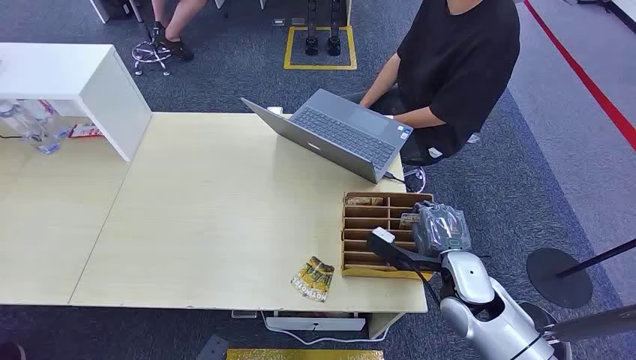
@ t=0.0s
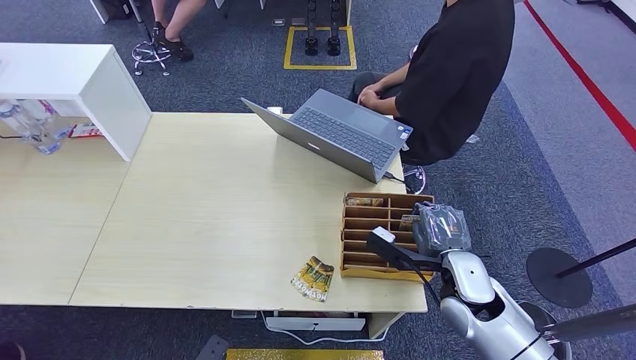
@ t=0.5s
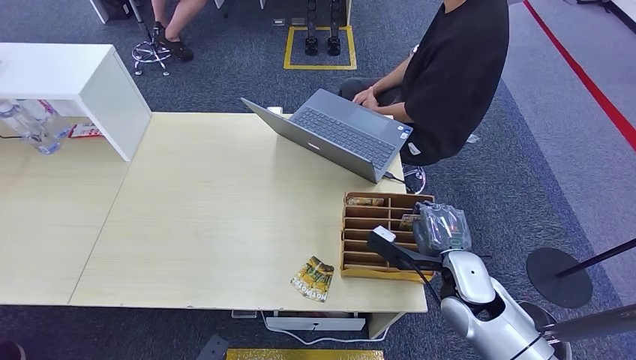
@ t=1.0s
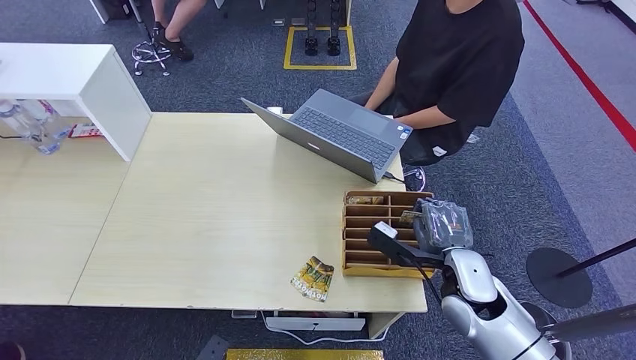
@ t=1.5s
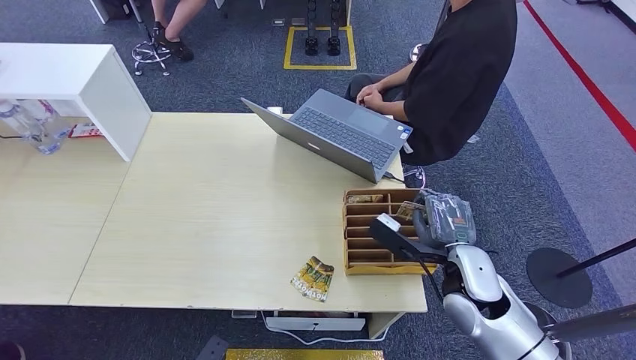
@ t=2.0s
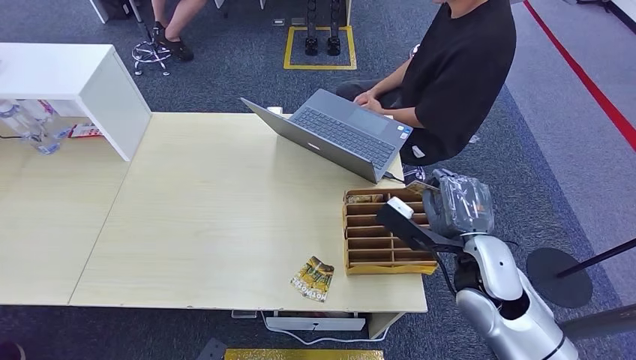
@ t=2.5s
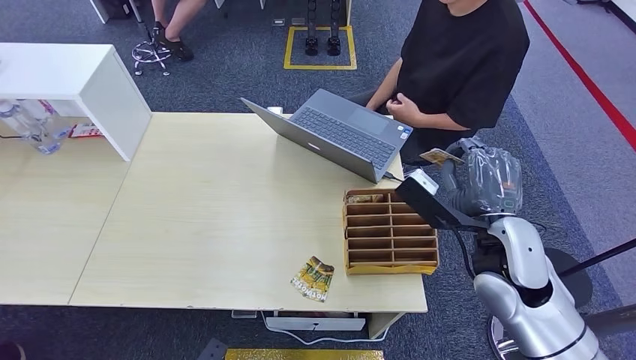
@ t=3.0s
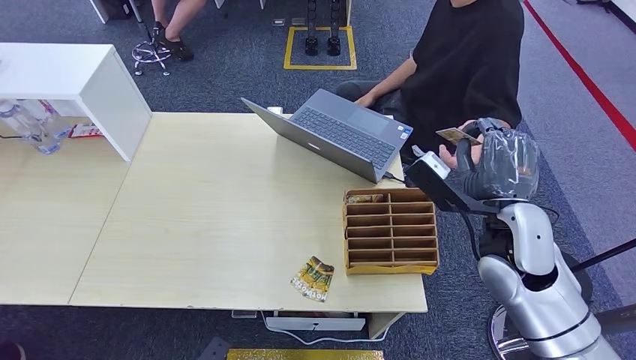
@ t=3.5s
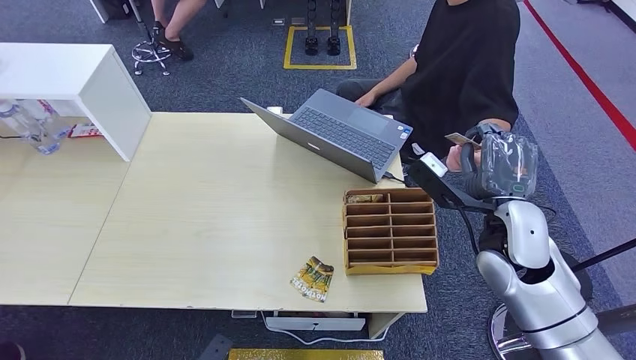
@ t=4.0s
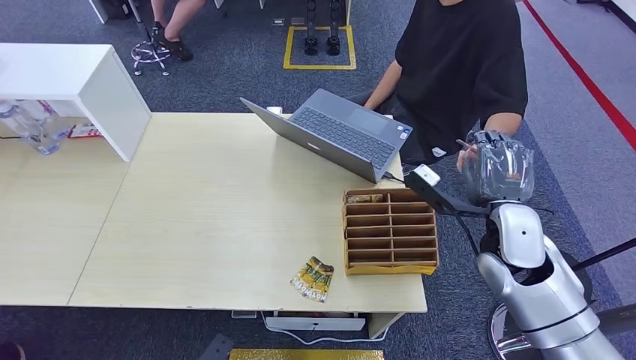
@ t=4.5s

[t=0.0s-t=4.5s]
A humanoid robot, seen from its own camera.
Step, t=0.0s to t=2.0s: Pick up the room card from the card holder.
Step, t=2.5s to t=4.5s: Hand the room card to the target.
t=2.0s to t=4.5s: The right hand travels upward by roughly 5 cm.
